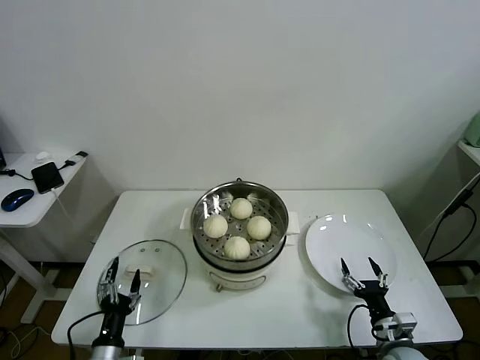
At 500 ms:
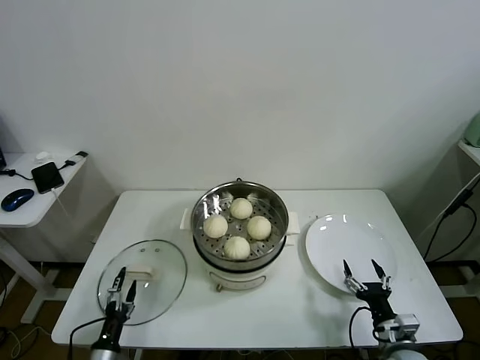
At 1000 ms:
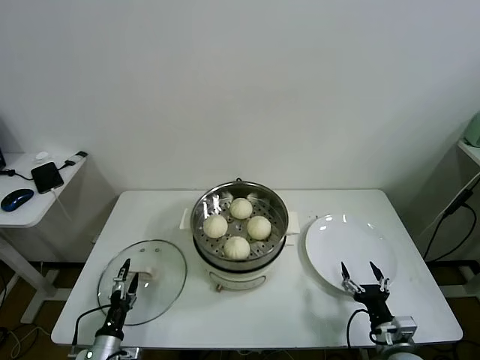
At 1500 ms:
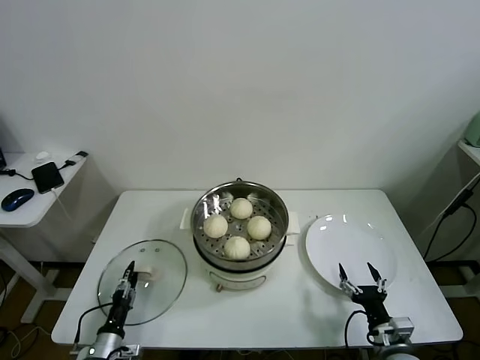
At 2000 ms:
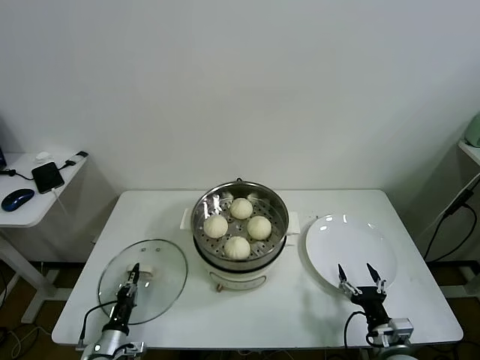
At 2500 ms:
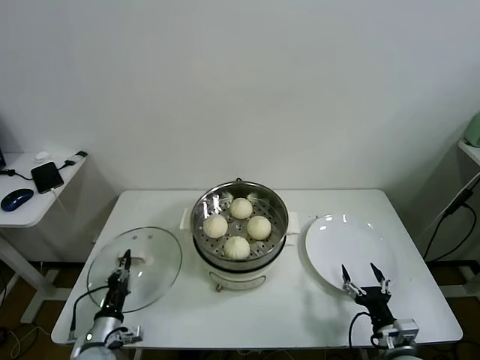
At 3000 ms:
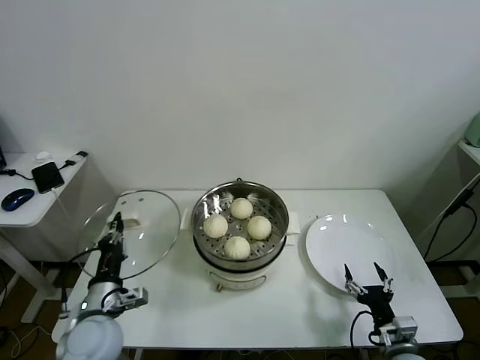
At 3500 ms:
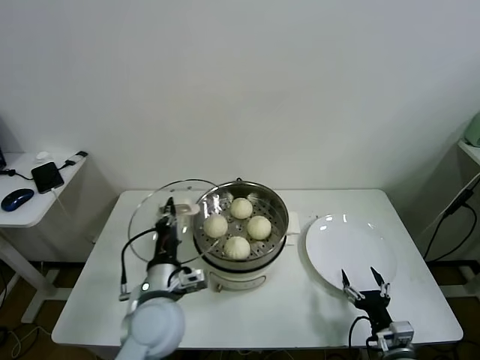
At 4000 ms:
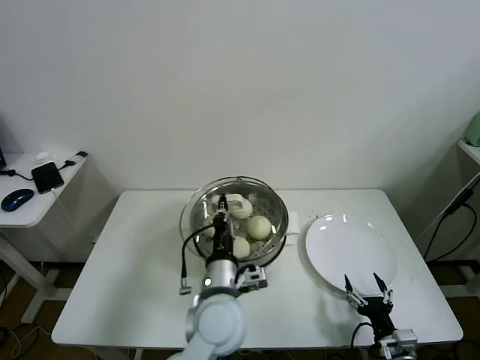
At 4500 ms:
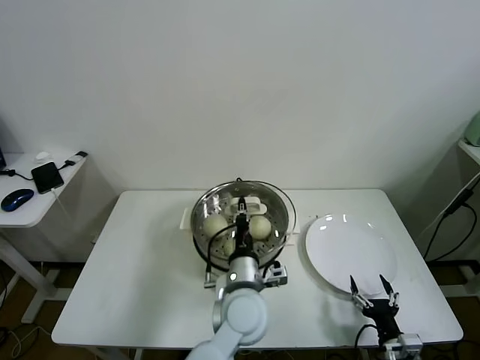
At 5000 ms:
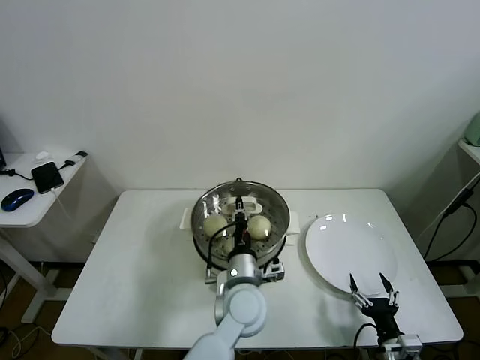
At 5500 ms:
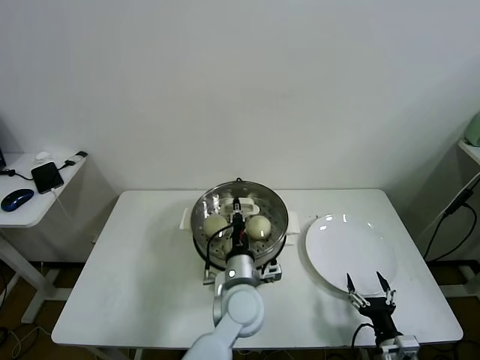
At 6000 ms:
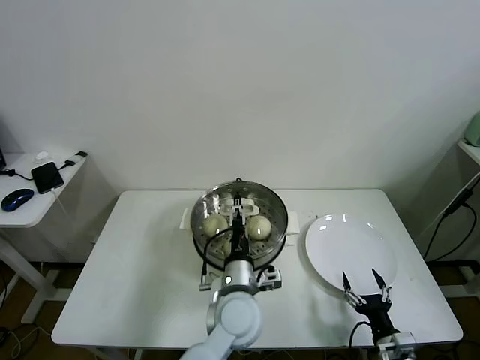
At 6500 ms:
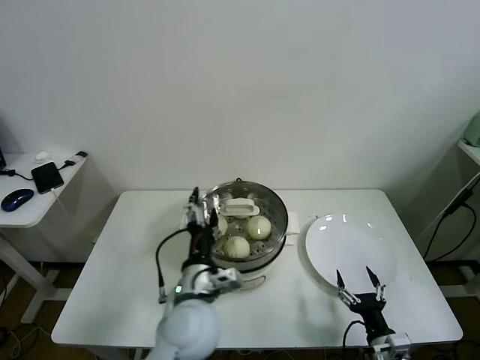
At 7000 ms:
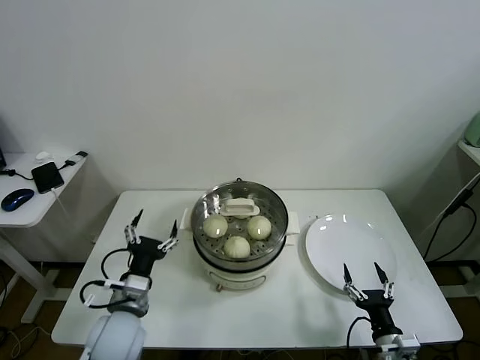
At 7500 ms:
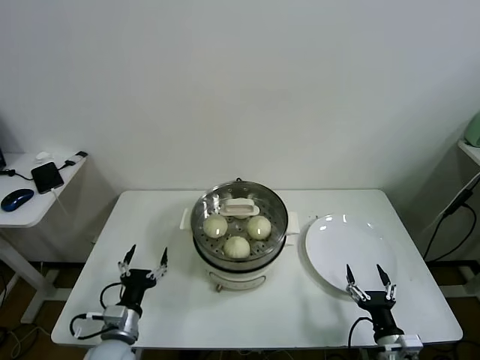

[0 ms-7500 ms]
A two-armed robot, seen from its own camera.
Task of the whole recording: take steamed baozi put them in steamer.
Step, 2000 ms to 5500 ms: Place the pot lid on the steamer with left gripper.
0 ms to 2000 ms: The left gripper moves downward and to the left, roughly 10 cm, and closes.
2000 ms to 4000 ms: The left gripper heads to the right and upward, covering about 40 cm.
4000 ms to 5500 ms: The left gripper is displaced downward and to the right by about 5 cm.
5500 ms to 7500 ms: The left gripper travels to the left by about 30 cm, and opens up.

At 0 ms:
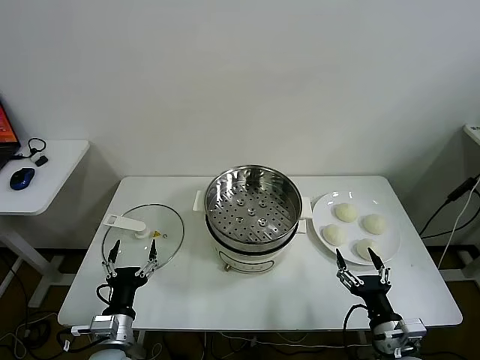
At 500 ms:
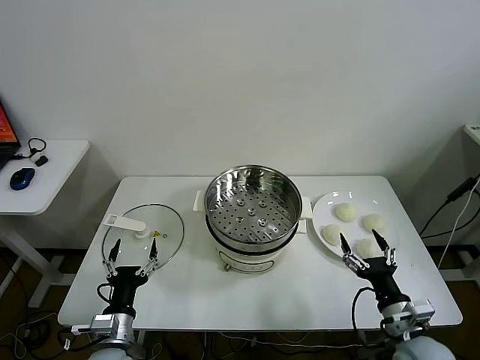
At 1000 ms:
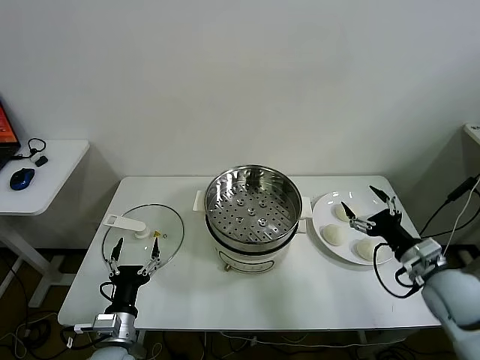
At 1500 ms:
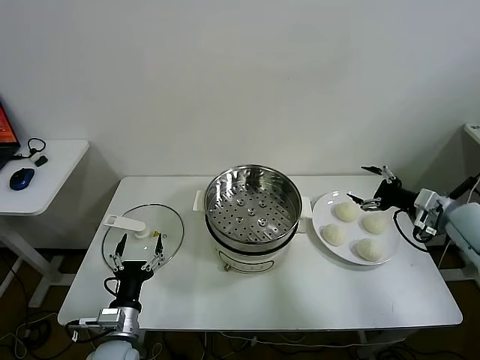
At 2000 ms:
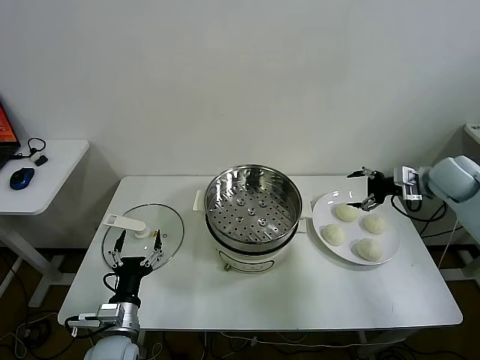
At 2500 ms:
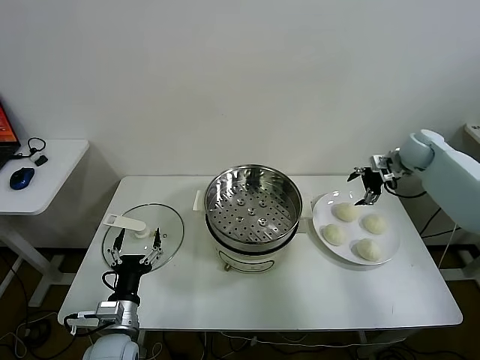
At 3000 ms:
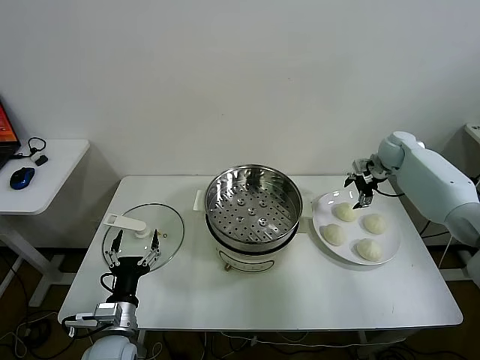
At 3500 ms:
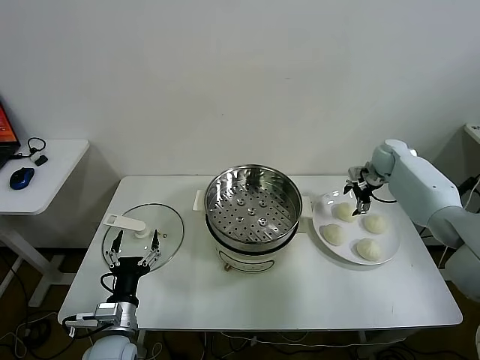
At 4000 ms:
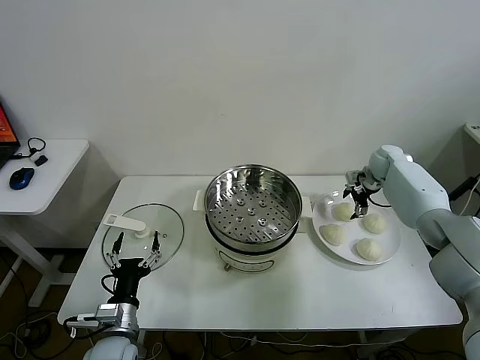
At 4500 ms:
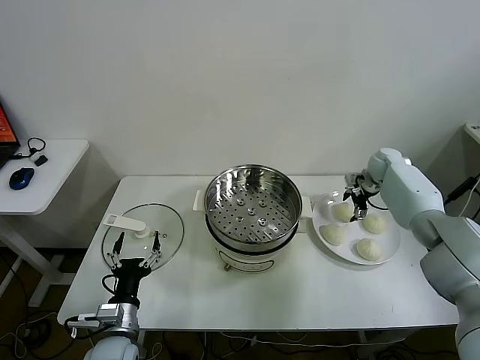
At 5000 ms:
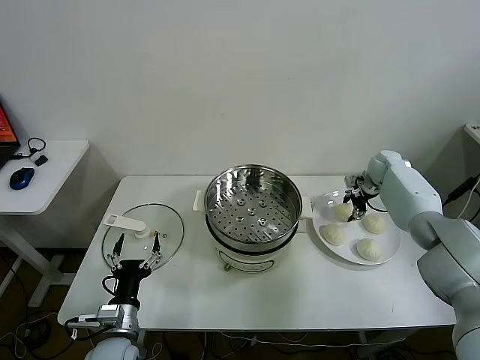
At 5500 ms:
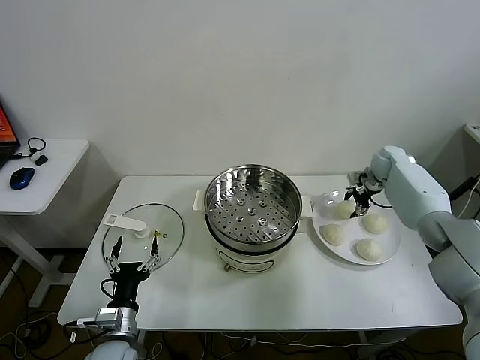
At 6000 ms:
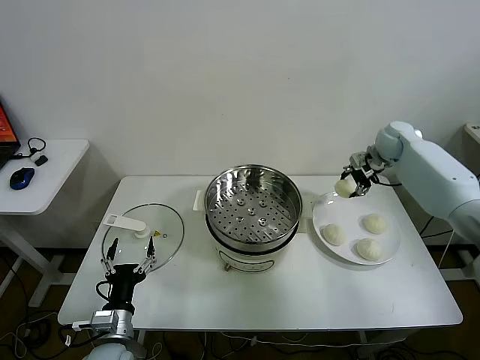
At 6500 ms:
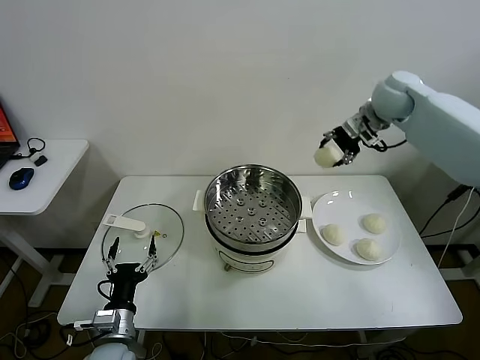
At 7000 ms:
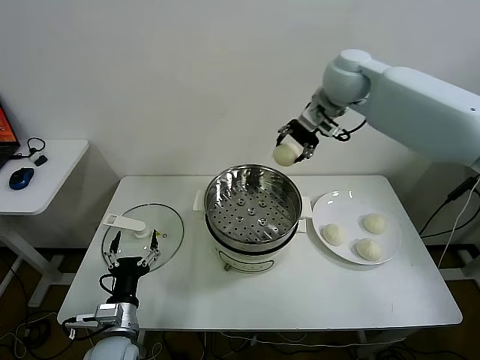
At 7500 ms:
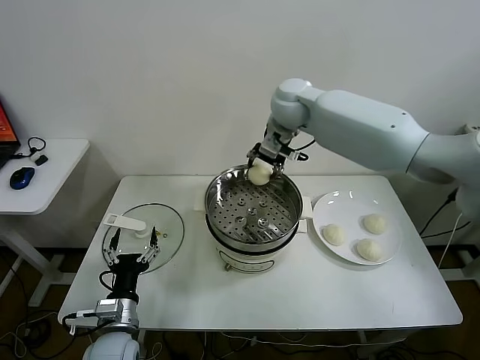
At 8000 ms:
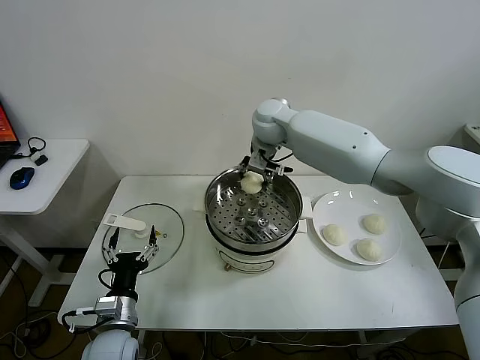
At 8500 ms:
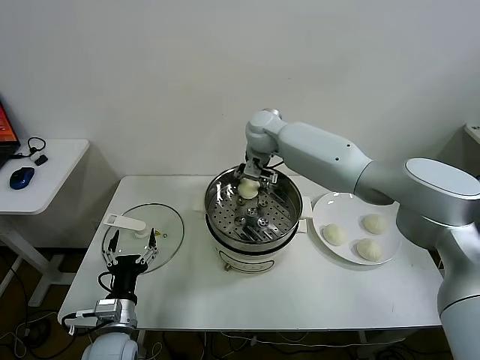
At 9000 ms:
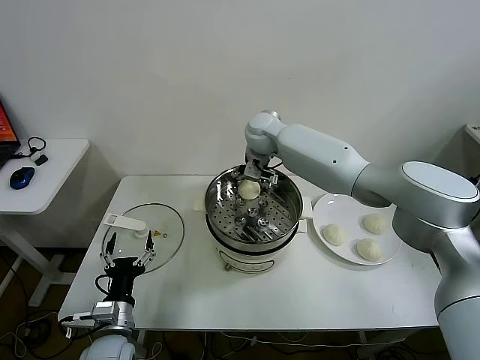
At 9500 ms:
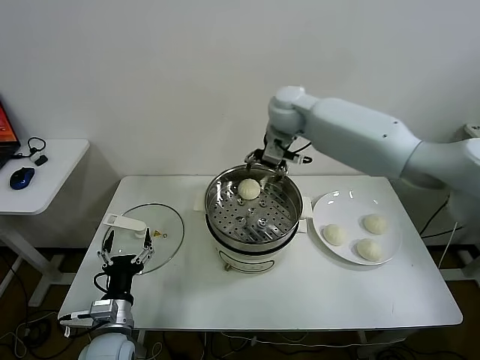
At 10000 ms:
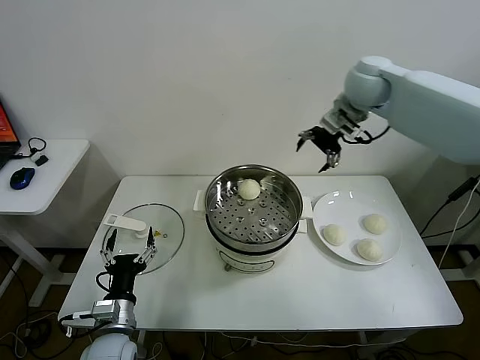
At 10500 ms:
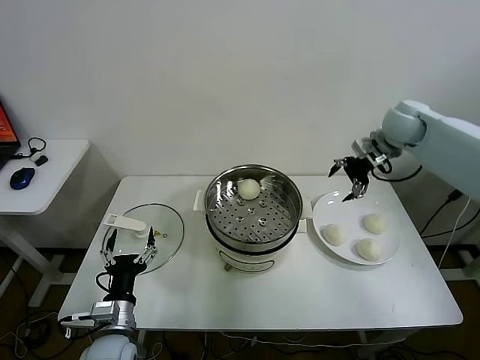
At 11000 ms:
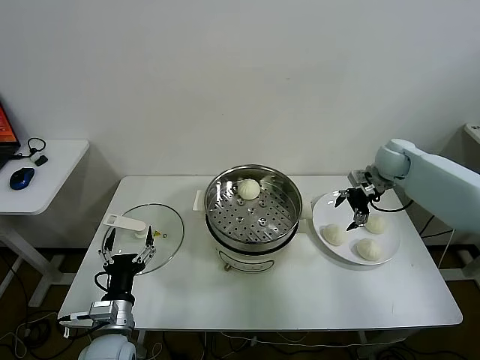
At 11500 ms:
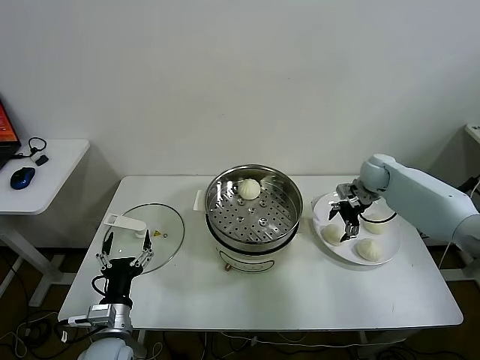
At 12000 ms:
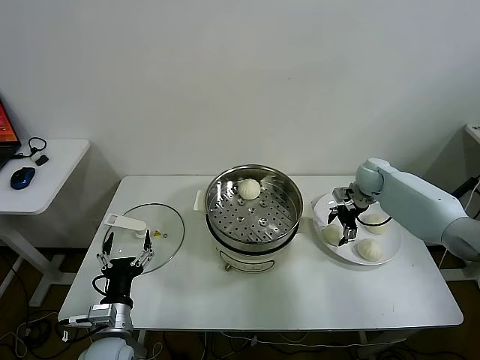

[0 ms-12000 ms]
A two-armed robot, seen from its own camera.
Task of the whole recording: take steamed baozi put them in steamer.
Step, 0 ms to 5000 ms: Grasp the baozi in the plate with right gripper.
Step, 5500 ms to 9000 ms: Place the baozi on the steamer with right gripper.
2000 ms to 4000 ms: The right gripper goes about 15 cm forward and downward.
4000 ms to 6000 ms: The right gripper moves upward, about 10 cm, and closes up.
6000 ms to 8000 ms: The right gripper goes roughly 30 cm to the left.
8000 ms to 10000 ms: The right gripper shifts some 25 cm to the right and upward, and opens up.
10000 ms to 12000 ms: The right gripper travels downward by some 25 cm.

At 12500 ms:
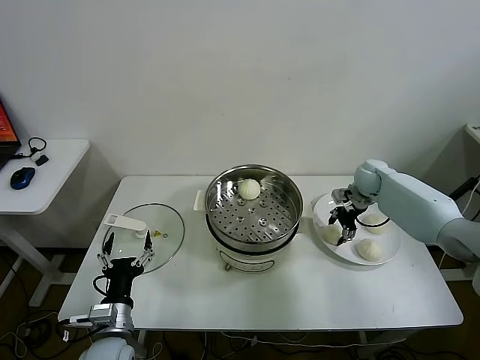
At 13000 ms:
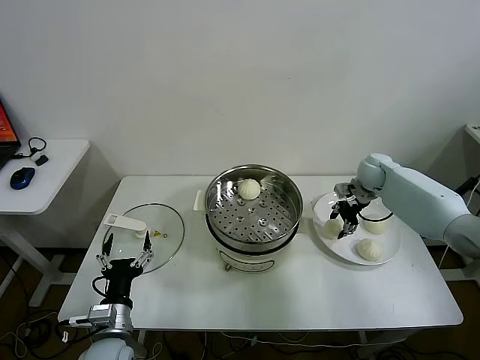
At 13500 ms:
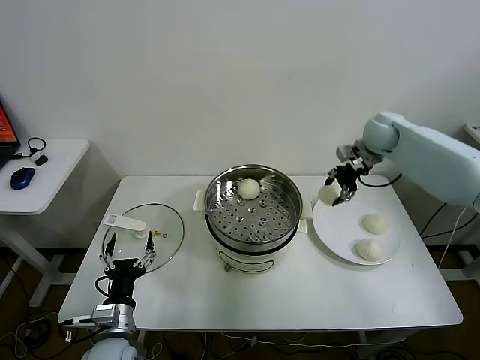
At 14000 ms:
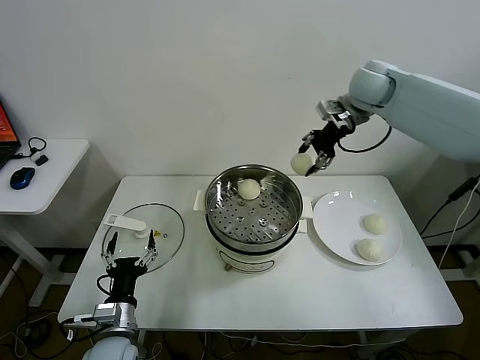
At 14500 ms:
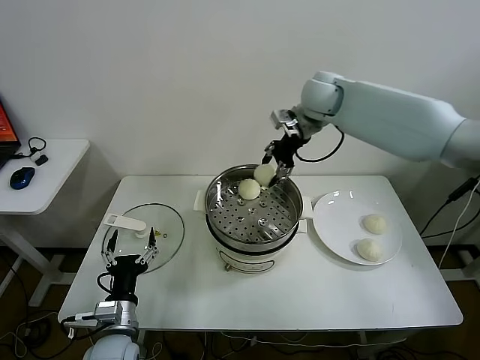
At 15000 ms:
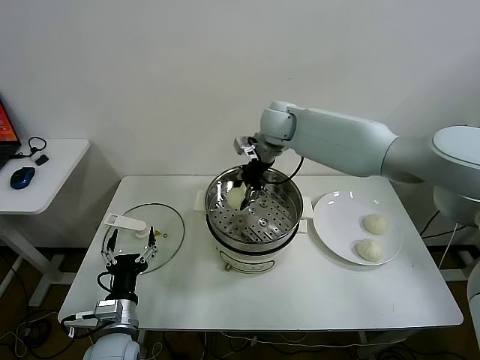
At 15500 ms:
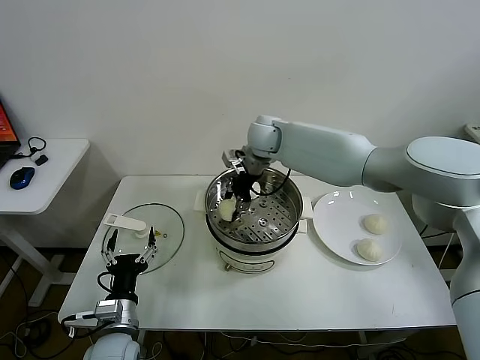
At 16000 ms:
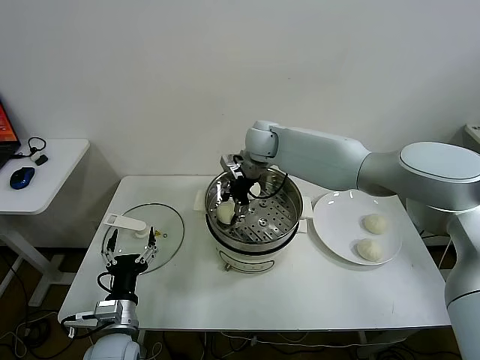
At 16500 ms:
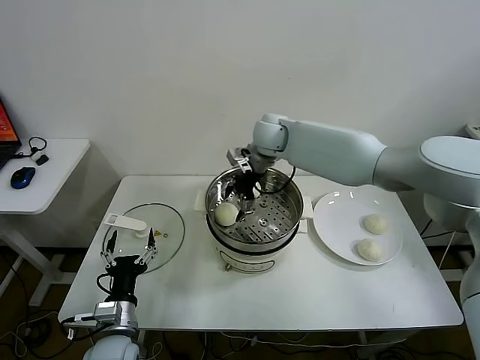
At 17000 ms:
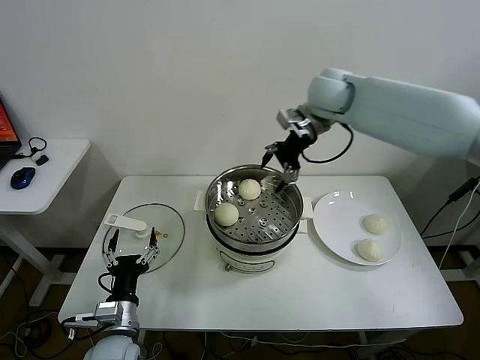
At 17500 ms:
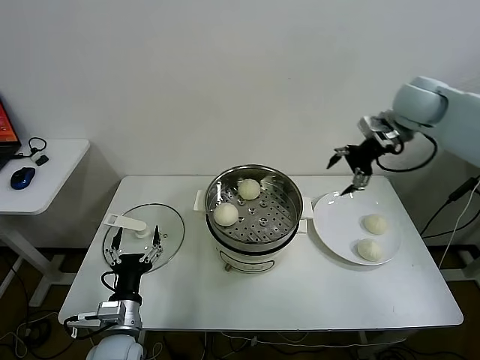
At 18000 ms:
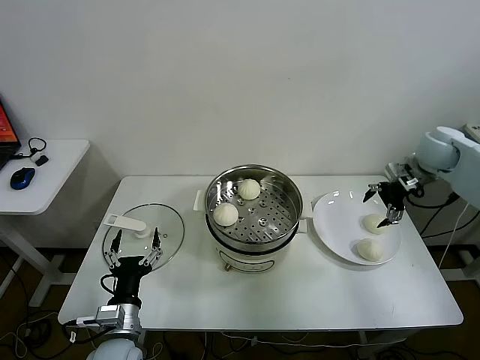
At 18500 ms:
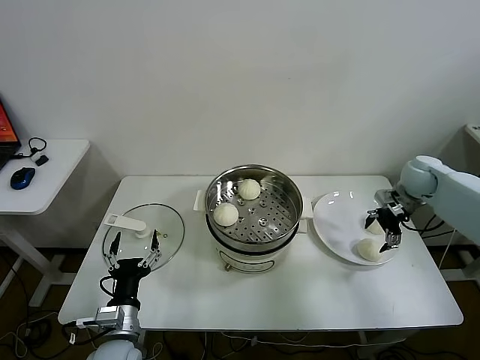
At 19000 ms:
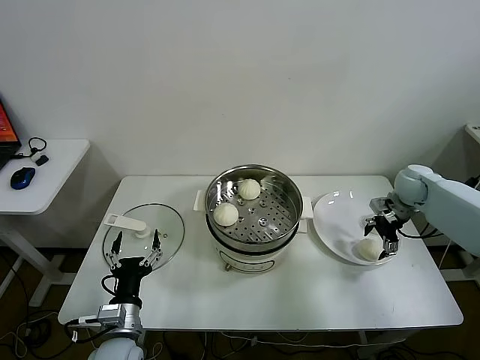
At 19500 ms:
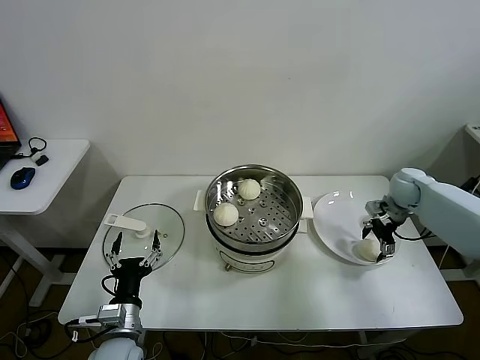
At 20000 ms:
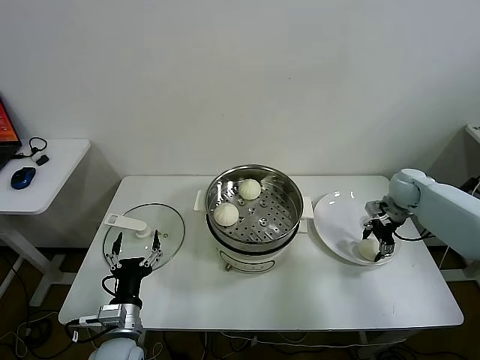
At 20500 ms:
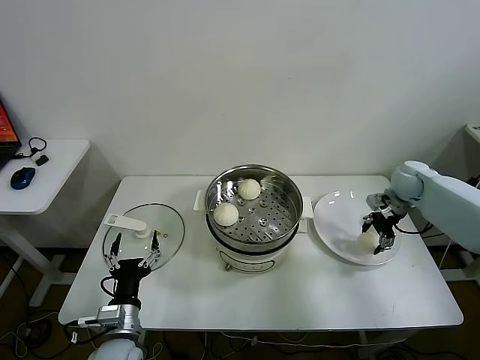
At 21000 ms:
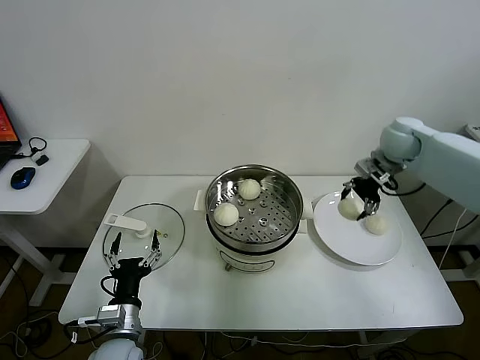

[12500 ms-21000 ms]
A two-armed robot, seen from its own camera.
Task of the whole recording: take steamed baozi put them in steamer.
Step, 13000 ms to 16000 ms: Place the baozi on the steamer with right gripper.
Step, 16500 ms to 20000 ms: Grasp the baozi in the plate with right gripper.
12500 ms to 14500 ms: The right gripper goes approximately 30 cm upward and to the left.
14500 ms to 16500 ms: The right gripper is displaced to the left and downward by approximately 10 cm, and opens its fingers.
16500 ms to 19000 ms: The right gripper travels to the right by roughly 35 cm.
19000 ms to 21000 ms: The right gripper travels upward and to the left by about 15 cm, and closes.
